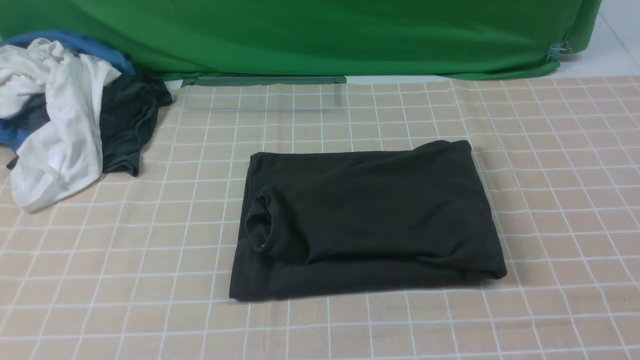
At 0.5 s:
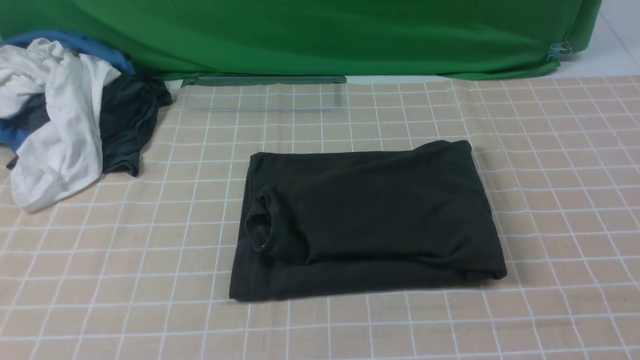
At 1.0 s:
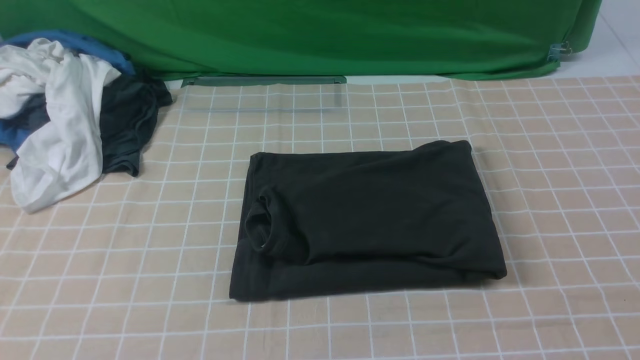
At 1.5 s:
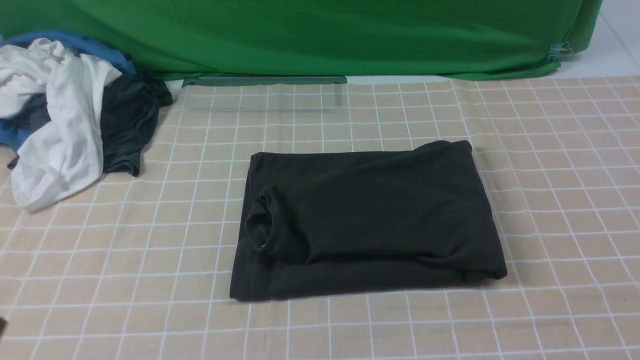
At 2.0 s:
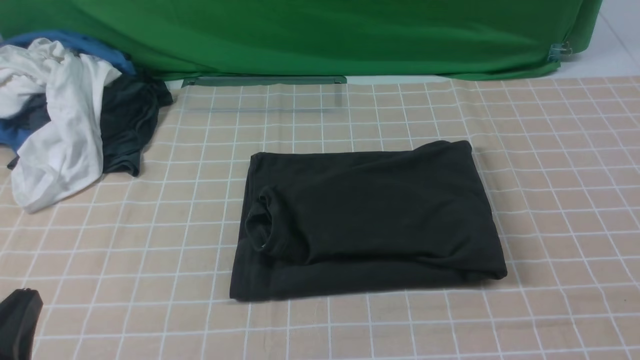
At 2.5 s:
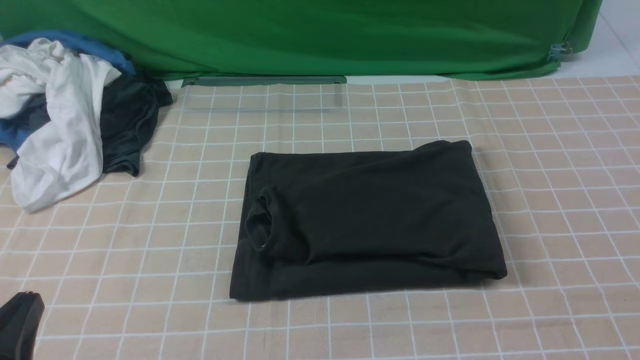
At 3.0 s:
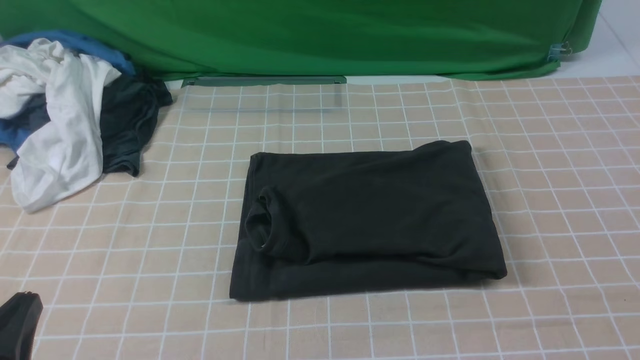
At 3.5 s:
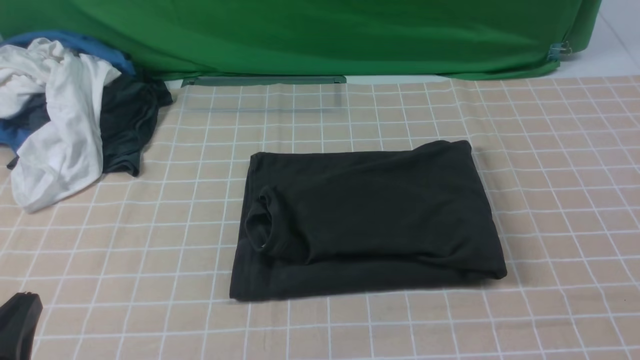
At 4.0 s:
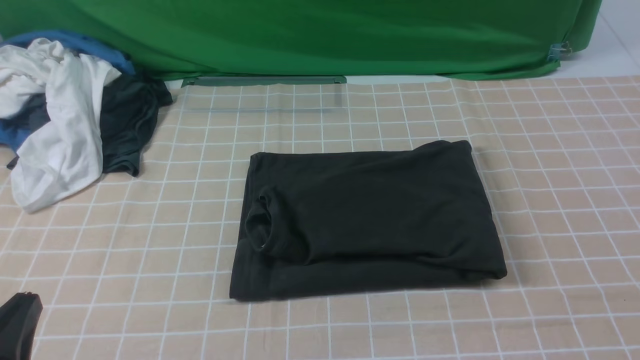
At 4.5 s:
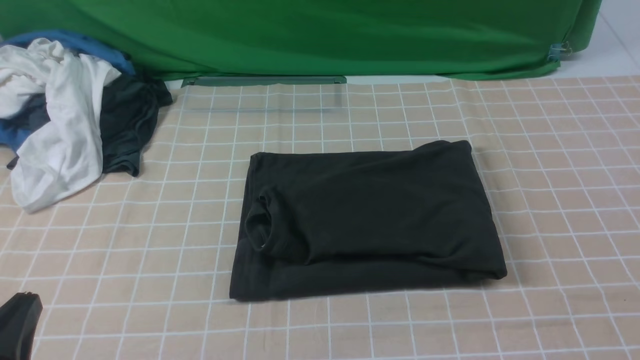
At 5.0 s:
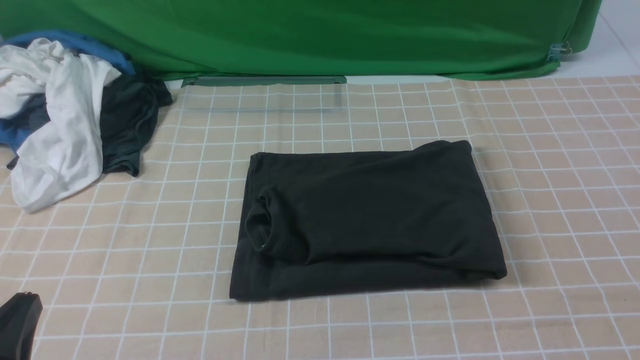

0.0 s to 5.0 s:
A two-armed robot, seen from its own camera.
0.0 to 2.5 s: The left gripper shifts some 25 cm downward.
